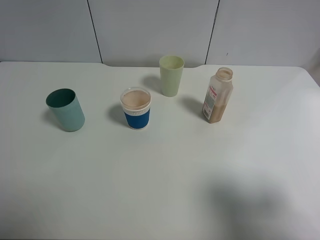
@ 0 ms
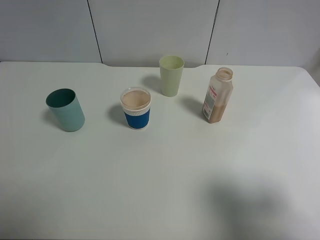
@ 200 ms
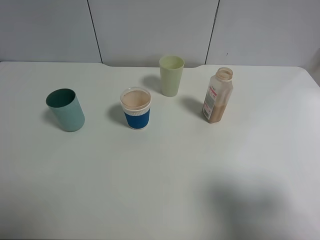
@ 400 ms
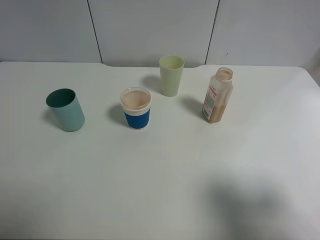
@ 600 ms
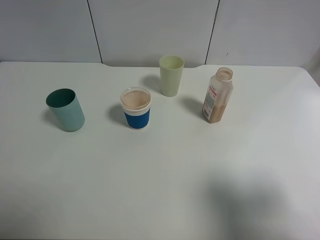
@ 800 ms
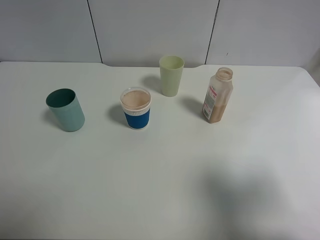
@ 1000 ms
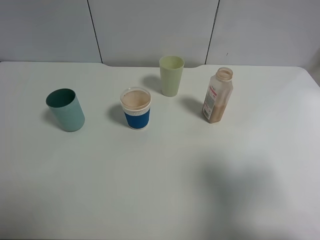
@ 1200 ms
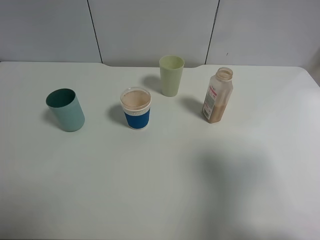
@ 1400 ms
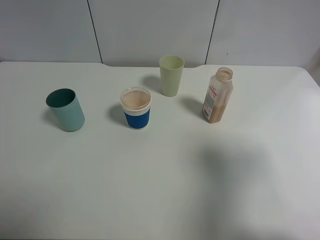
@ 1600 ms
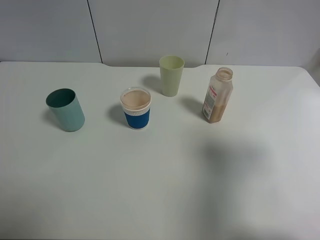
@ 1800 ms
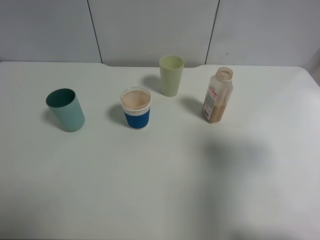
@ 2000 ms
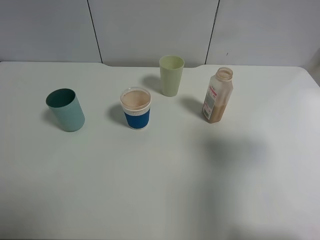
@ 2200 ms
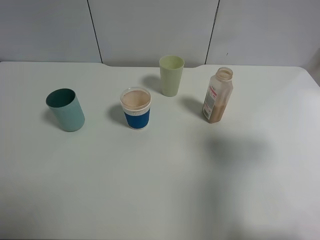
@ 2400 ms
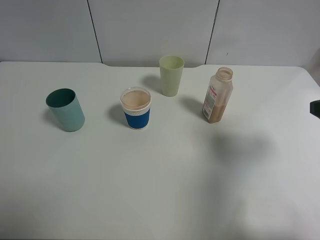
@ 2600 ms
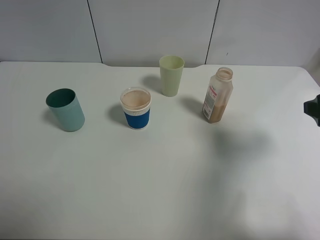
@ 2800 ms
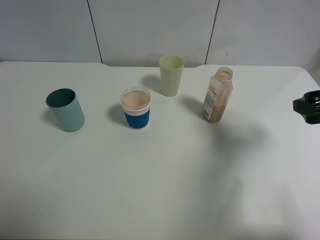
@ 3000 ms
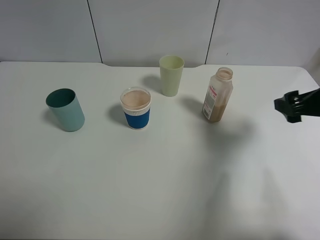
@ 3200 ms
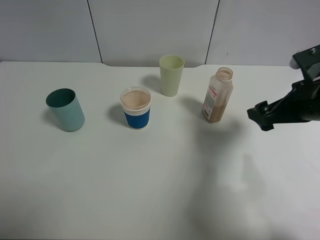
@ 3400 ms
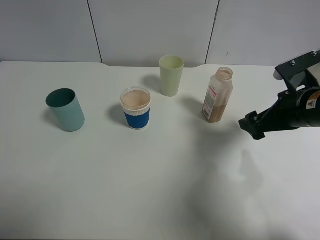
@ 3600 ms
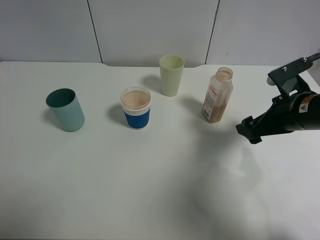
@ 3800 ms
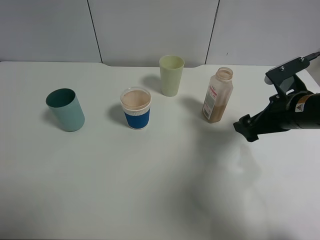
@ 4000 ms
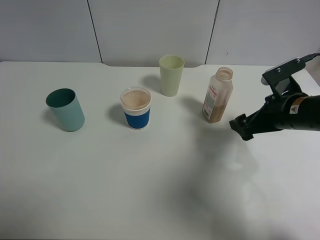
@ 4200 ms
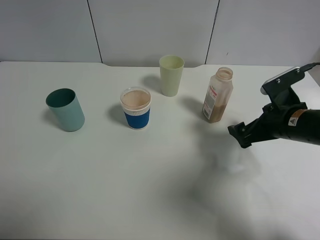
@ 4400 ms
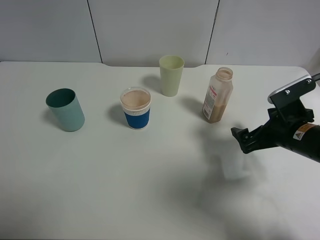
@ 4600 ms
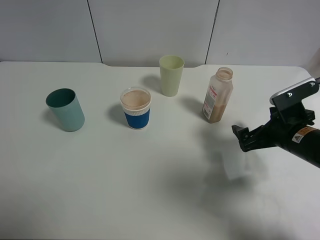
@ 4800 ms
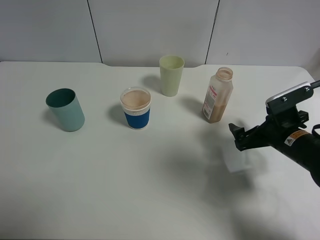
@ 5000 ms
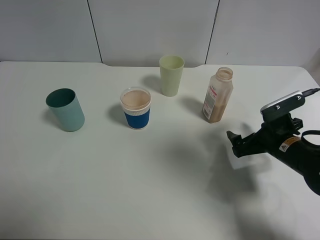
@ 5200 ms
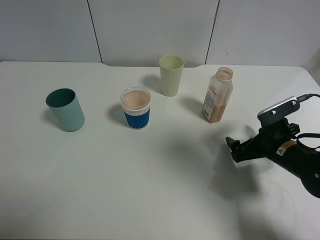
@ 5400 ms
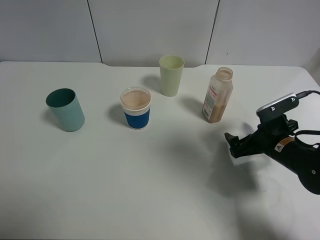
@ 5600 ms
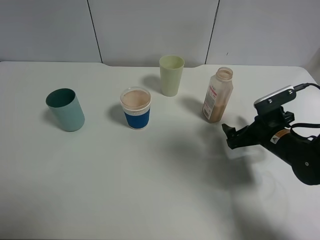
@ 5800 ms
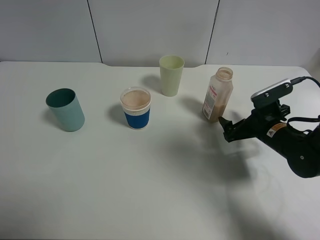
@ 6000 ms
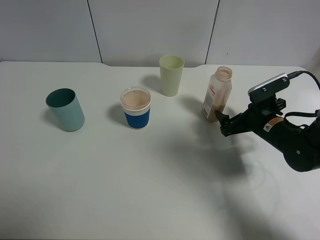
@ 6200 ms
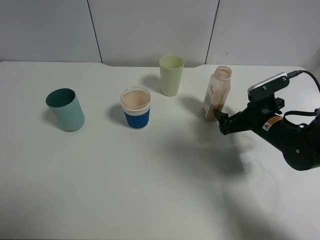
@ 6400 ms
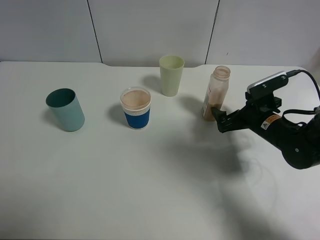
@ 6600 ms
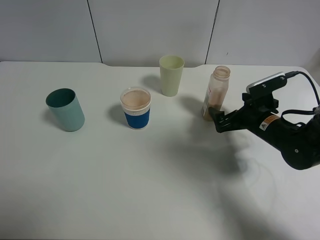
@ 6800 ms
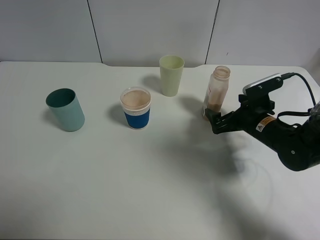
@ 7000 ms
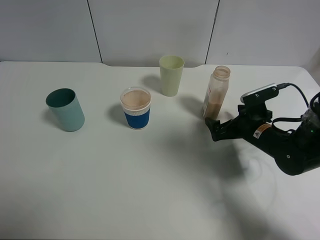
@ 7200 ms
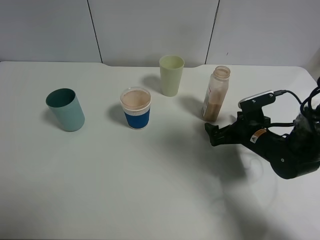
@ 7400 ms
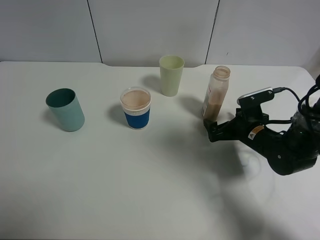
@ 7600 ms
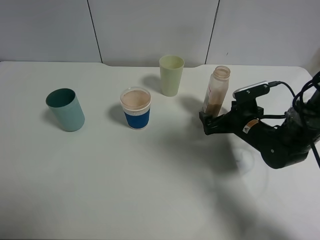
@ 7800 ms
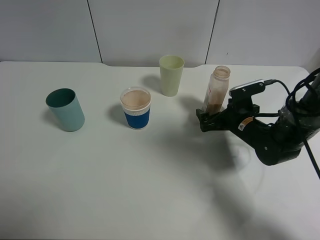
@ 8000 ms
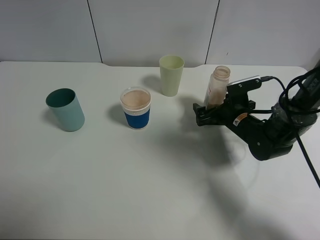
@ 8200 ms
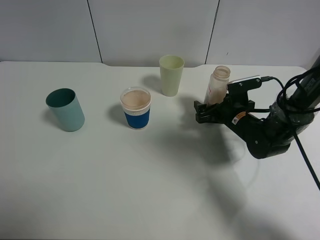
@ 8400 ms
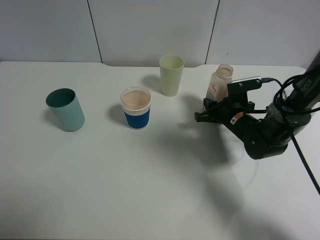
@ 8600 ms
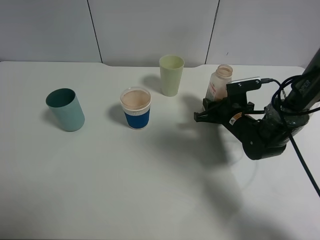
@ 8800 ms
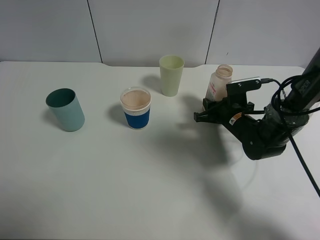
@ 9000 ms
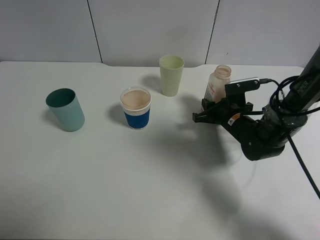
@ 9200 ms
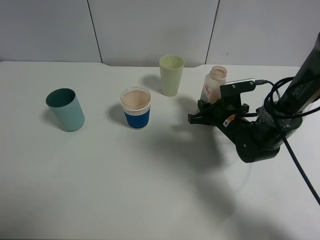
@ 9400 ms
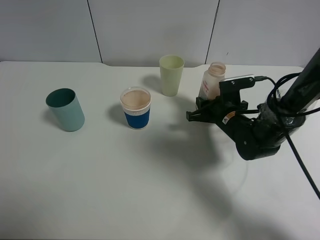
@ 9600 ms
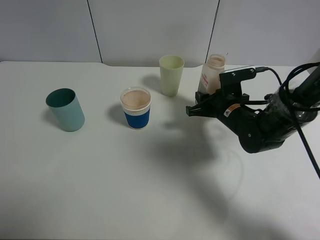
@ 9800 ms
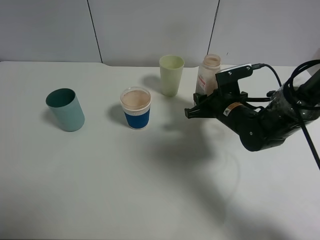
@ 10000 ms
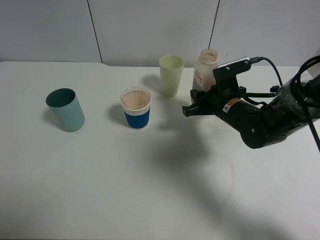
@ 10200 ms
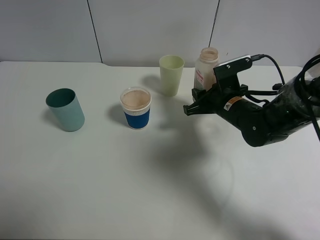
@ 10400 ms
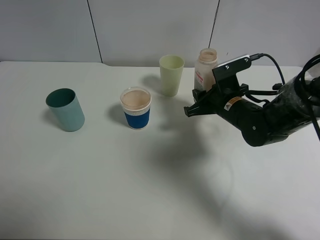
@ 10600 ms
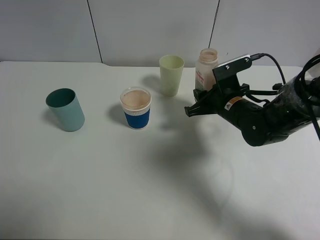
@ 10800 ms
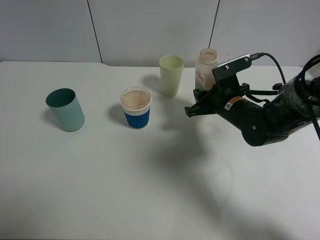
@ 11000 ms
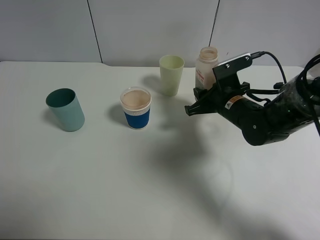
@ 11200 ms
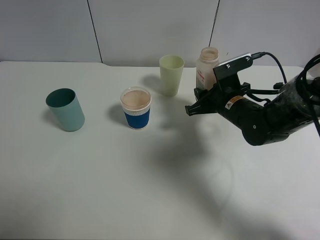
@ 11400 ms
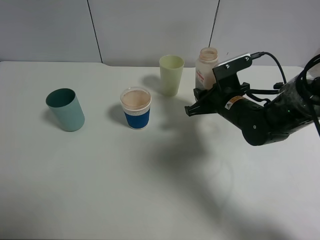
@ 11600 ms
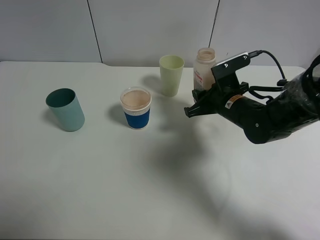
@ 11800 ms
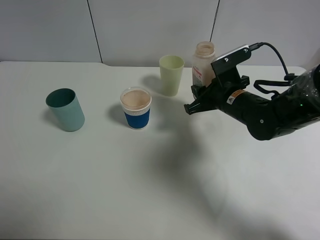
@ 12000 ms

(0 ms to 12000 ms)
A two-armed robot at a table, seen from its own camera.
Task of the whole recording: use a clamp to hold the bottle of the drink, pour the beverage into a random cup, then clamp the cup containing the drink and pour the drink into another random cup.
Step, 0 ms - 9600 ms: Pick up the drink bottle with right gripper.
0 ms - 1600 ms: The right gripper goes some 5 cm forward.
1600 ms - 3000 ms: The right gripper goes roughly 15 cm forward and downward.
3000 ms - 4400 ms: The right gripper shifts about 15 cm downward, to the left and forward.
4400 ms - 6000 ms: The right gripper travels downward by about 5 cm.
6000 ms - 7600 ms: The grippers make only small movements.
7600 ms - 9000 ms: The right gripper changes place by roughly 5 cm, and closes.
9000 ms - 10400 ms: The right gripper is displaced upward by roughly 5 cm.
10400 ms - 12000 ms: The grippers stay close to where they were, moving slightly.

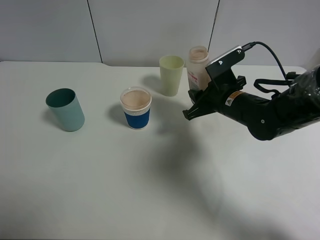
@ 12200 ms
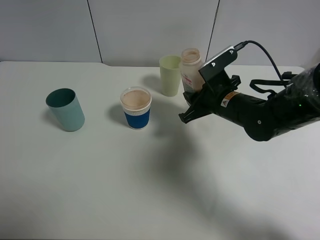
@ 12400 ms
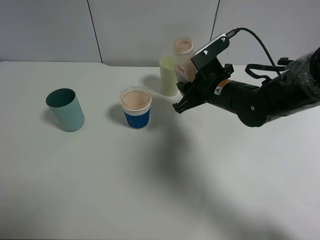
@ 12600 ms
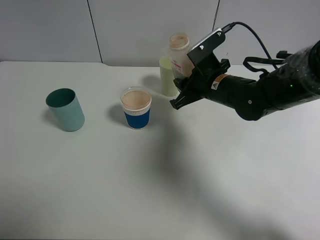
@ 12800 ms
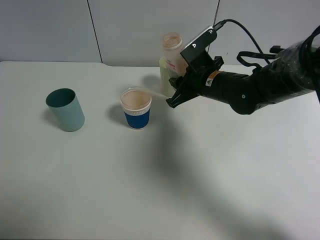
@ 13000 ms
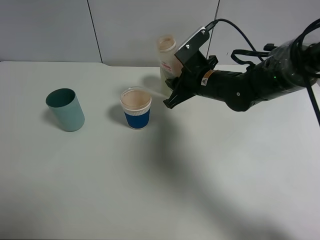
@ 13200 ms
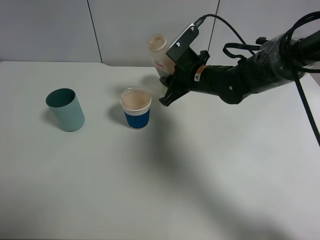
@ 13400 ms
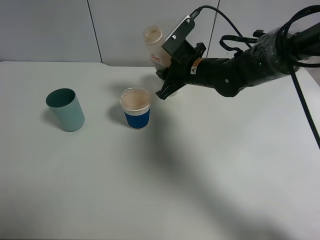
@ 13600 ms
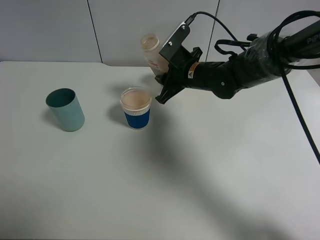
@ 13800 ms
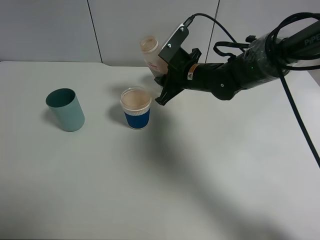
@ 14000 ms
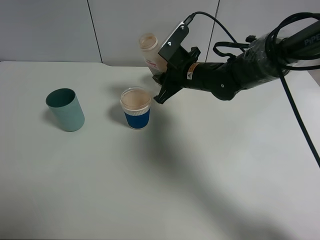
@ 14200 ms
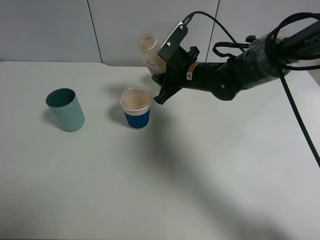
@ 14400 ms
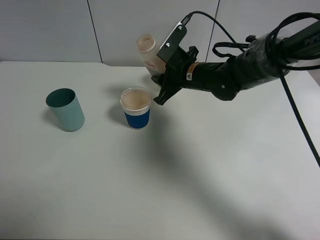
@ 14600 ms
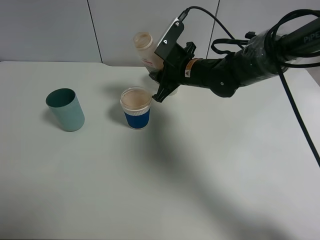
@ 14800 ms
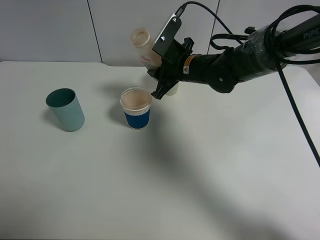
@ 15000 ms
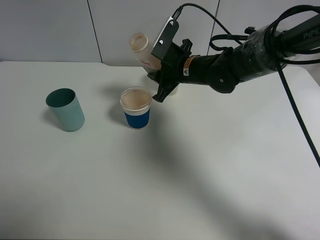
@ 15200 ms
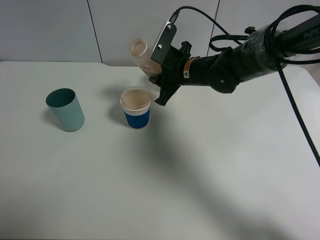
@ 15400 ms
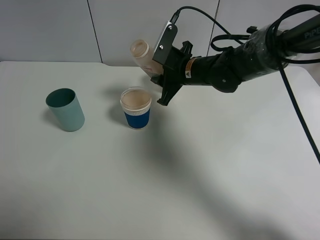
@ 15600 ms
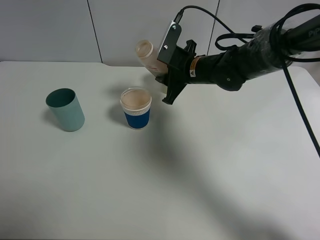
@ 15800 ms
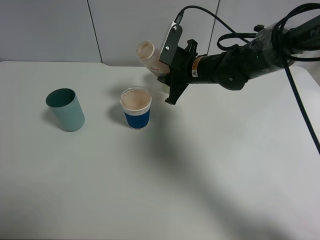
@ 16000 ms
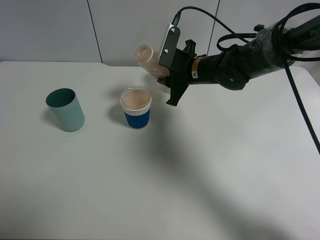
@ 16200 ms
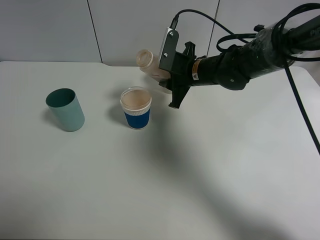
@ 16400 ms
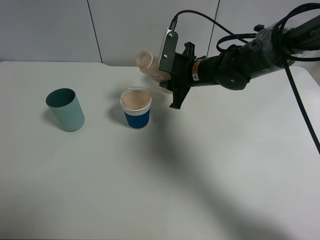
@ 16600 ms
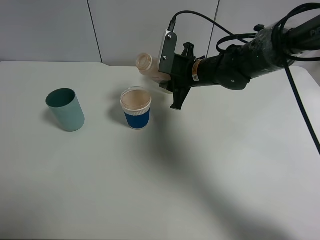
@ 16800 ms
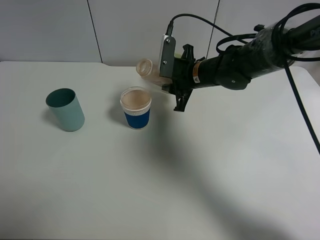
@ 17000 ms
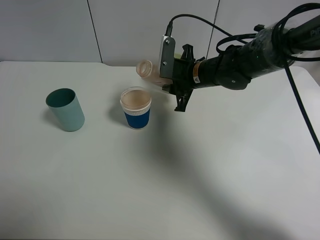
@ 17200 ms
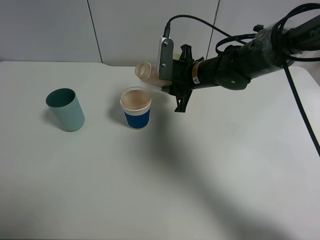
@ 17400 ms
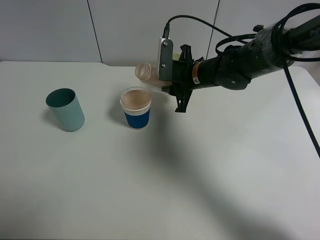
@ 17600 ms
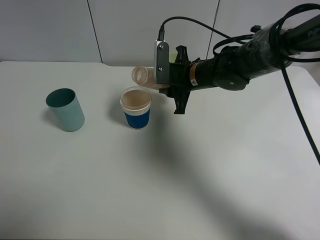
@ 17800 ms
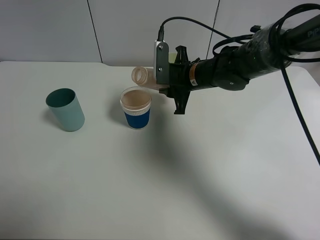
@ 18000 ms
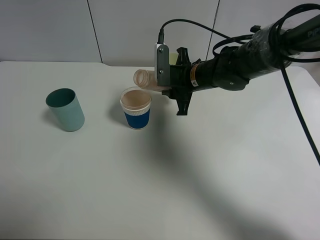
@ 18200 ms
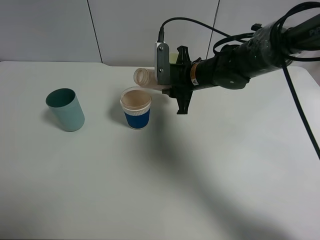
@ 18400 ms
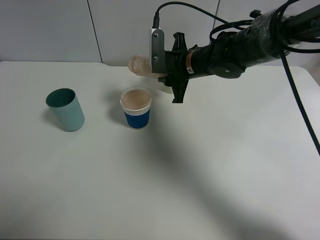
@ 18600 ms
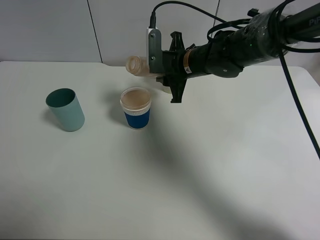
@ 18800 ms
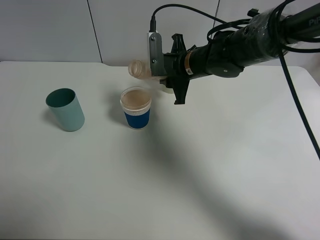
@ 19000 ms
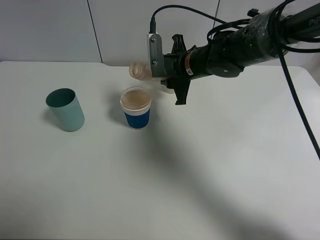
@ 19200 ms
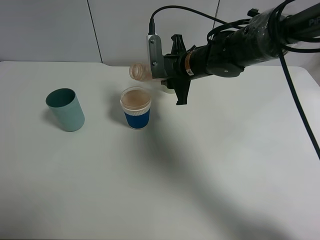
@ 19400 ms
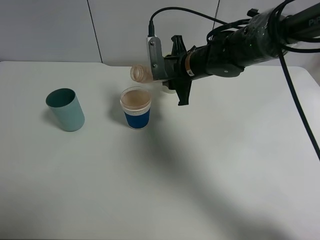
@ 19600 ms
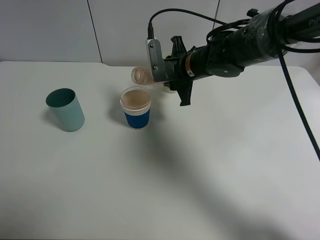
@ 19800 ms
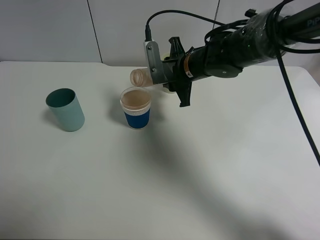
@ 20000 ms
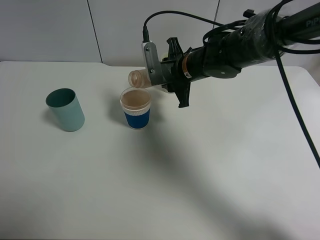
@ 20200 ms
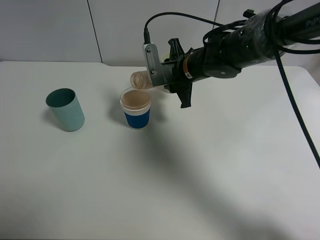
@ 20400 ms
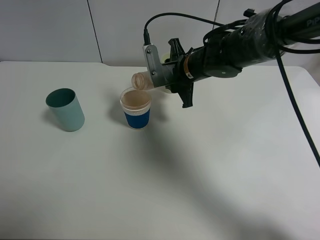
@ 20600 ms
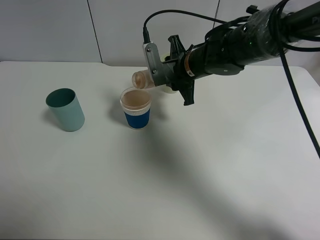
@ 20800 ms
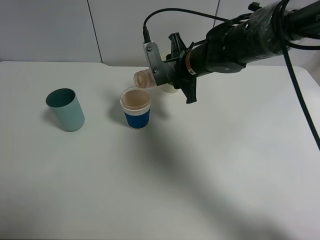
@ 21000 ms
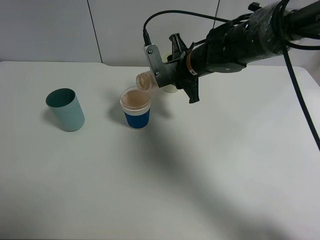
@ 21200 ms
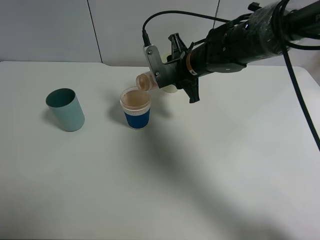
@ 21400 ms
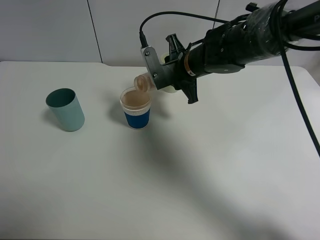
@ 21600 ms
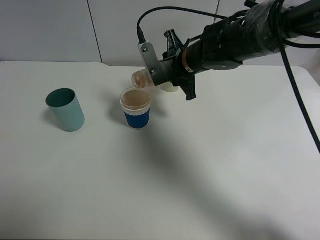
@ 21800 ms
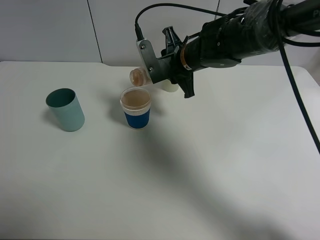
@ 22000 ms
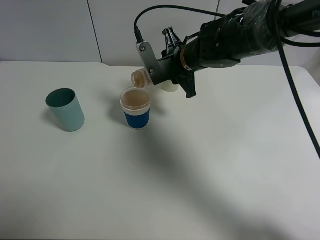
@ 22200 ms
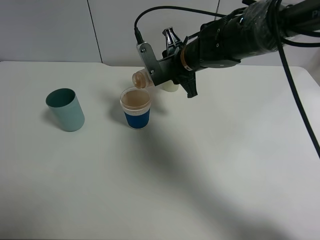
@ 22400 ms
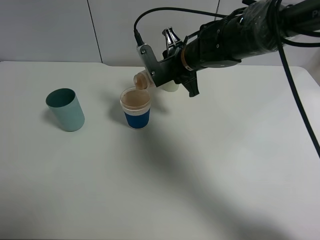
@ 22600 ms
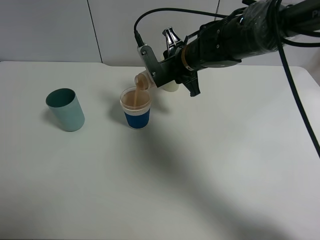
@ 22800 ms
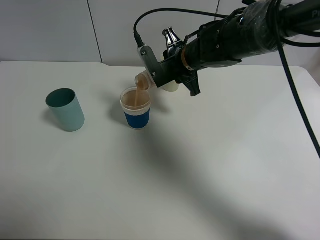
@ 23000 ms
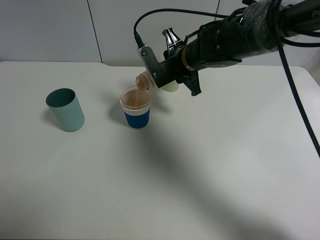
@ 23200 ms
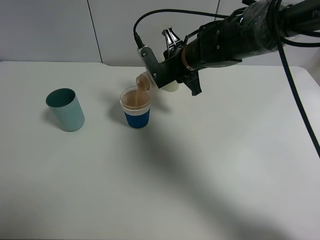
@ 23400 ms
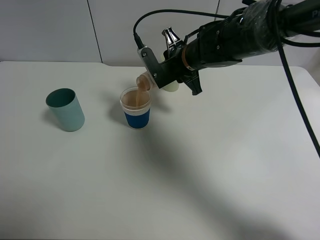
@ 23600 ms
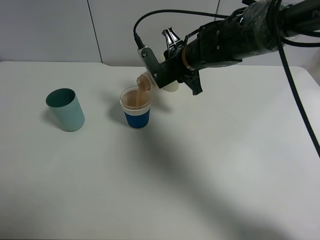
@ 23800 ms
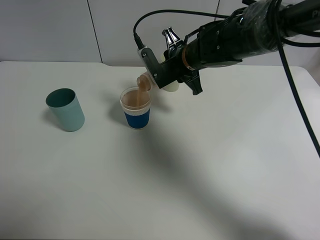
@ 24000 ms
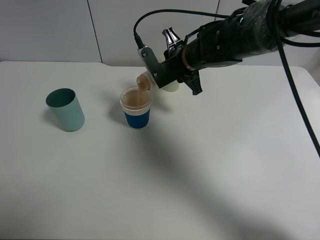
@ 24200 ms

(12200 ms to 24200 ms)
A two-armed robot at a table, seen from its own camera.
Task of the whole recording: use a clamp to hold the bottle of the drink, pour the beverage into a random cup, then clamp the cup containing the drink and pour the drink into another random cup.
12200 ms - 13800 ms: The right gripper travels to the left and forward by roughly 10 cm.
13800 ms - 15200 ms: The grippers stay close to where they were, moving slightly.
15200 ms - 16600 ms: There are only small adjustments of the grippers.
16600 ms - 18200 ms: The grippers make only small movements.
18200 ms - 19800 ms: The grippers stay close to where they were, moving slightly.
19800 ms - 22600 ms: There are only small adjustments of the grippers.
22600 ms - 24200 ms: There are only small adjustments of the grippers.
